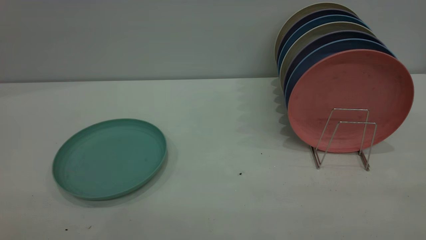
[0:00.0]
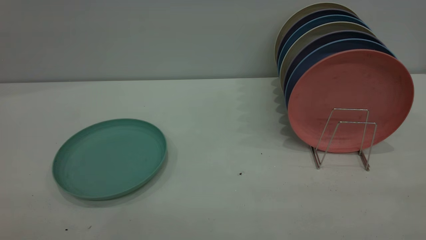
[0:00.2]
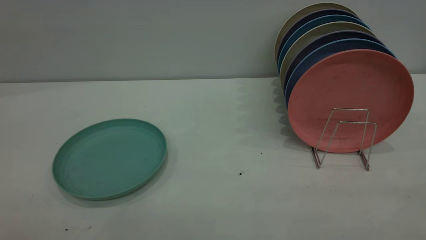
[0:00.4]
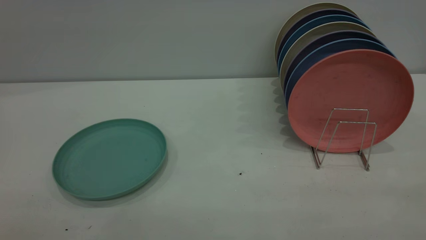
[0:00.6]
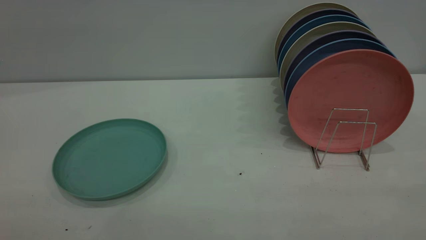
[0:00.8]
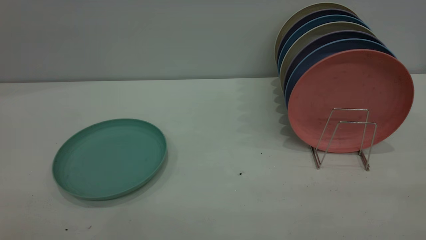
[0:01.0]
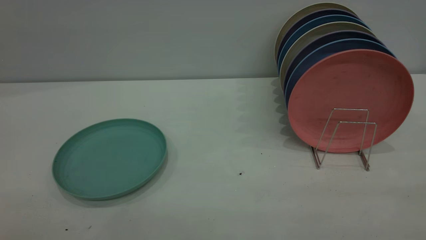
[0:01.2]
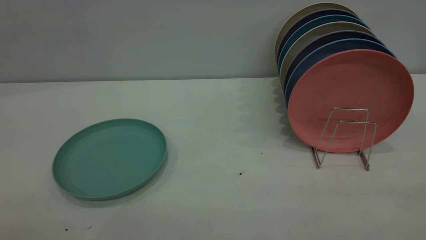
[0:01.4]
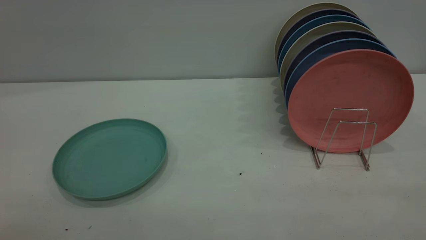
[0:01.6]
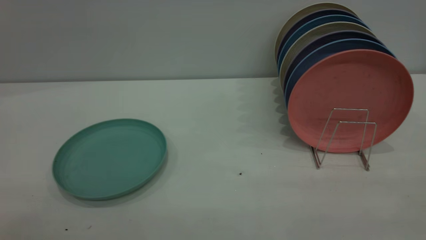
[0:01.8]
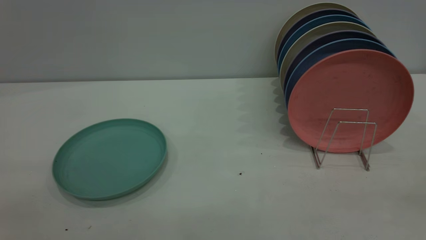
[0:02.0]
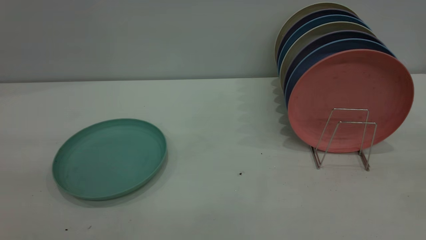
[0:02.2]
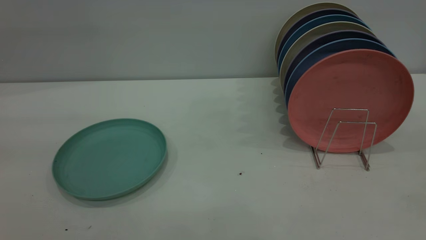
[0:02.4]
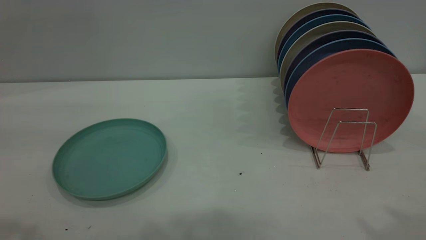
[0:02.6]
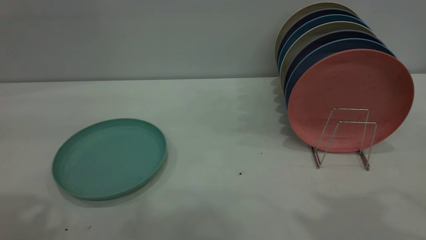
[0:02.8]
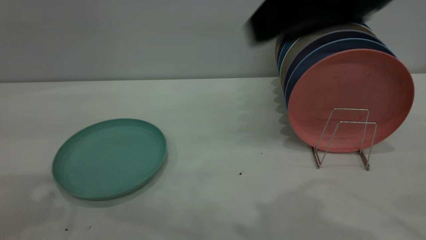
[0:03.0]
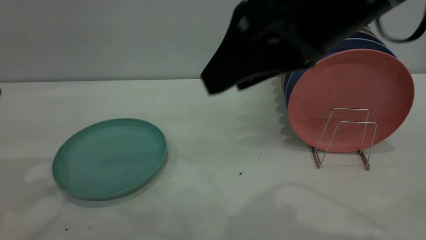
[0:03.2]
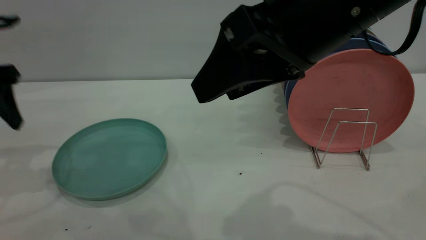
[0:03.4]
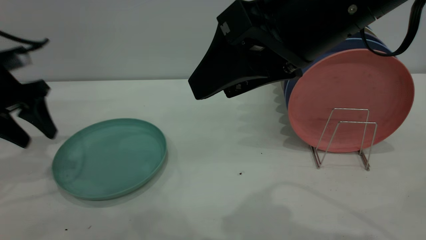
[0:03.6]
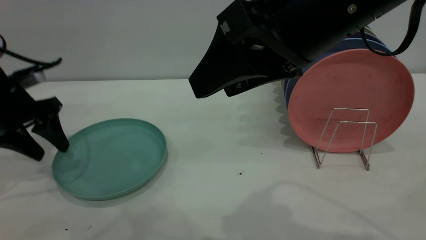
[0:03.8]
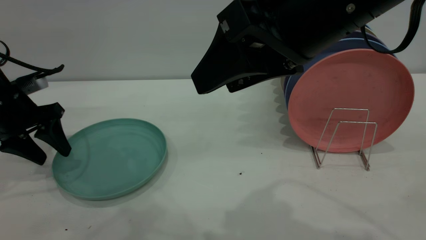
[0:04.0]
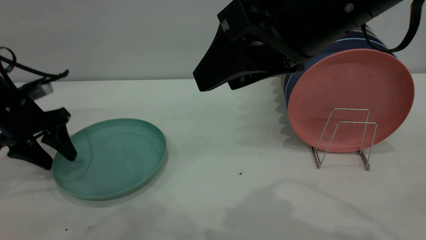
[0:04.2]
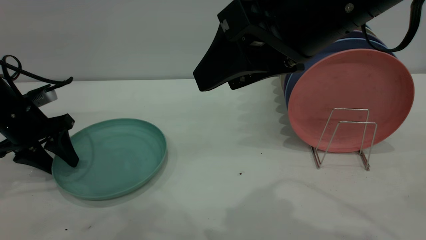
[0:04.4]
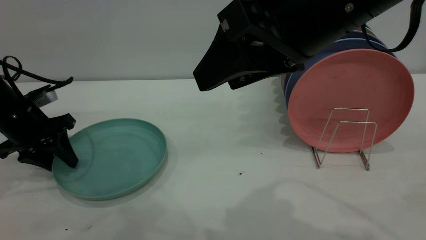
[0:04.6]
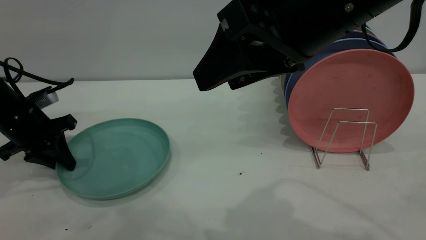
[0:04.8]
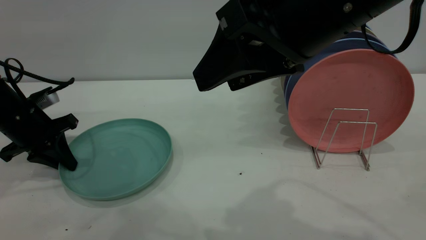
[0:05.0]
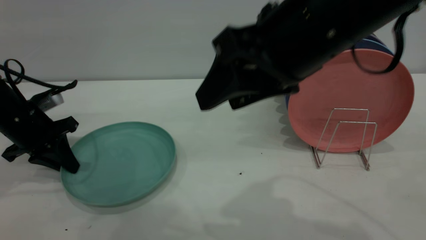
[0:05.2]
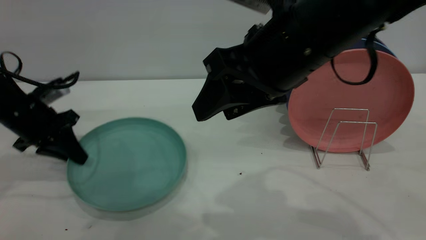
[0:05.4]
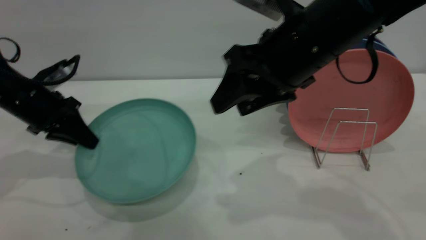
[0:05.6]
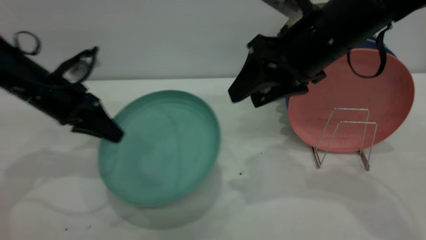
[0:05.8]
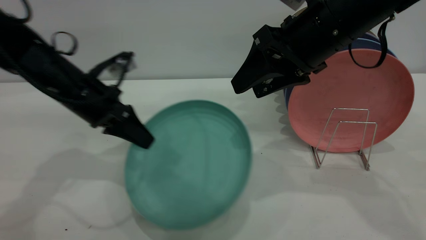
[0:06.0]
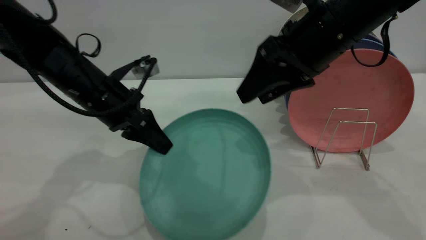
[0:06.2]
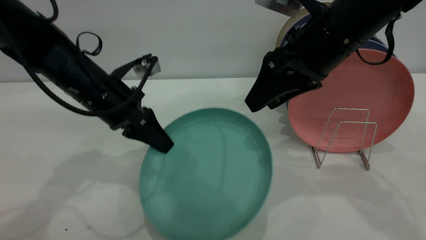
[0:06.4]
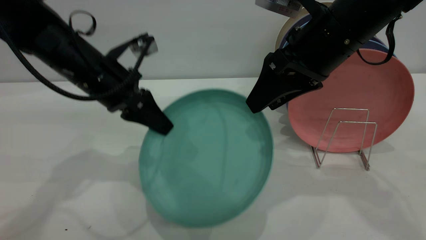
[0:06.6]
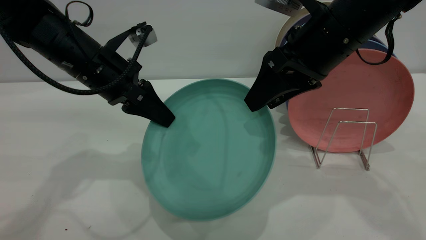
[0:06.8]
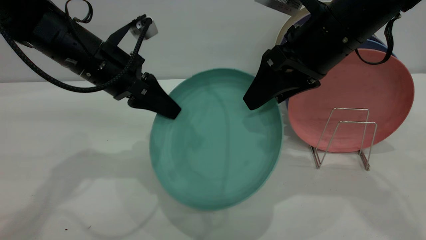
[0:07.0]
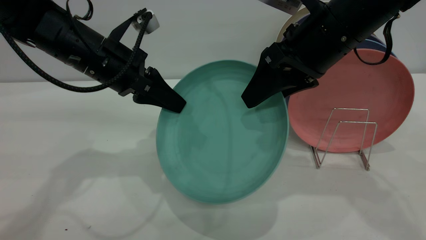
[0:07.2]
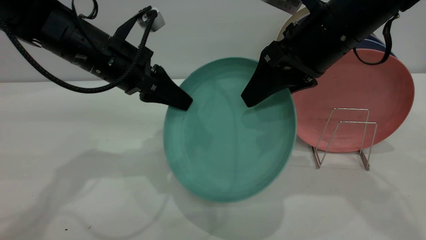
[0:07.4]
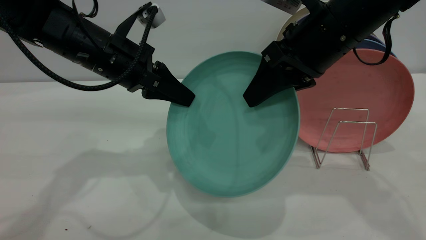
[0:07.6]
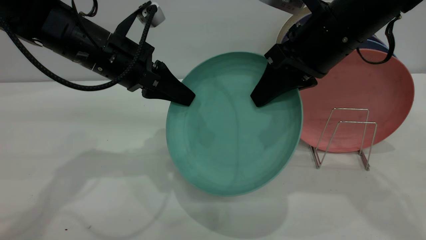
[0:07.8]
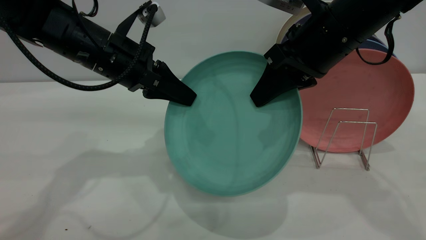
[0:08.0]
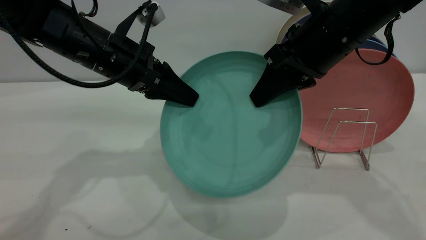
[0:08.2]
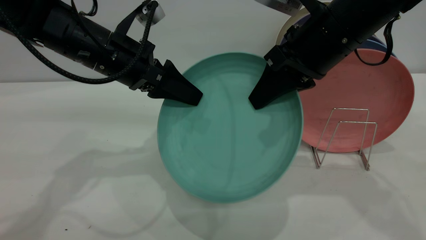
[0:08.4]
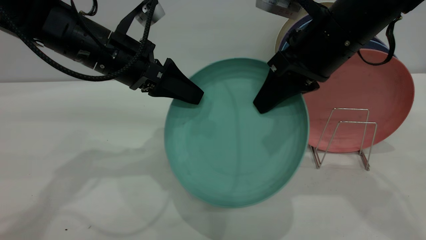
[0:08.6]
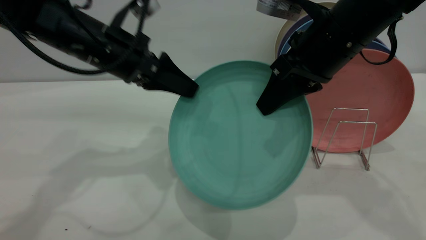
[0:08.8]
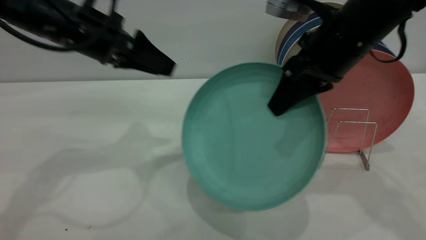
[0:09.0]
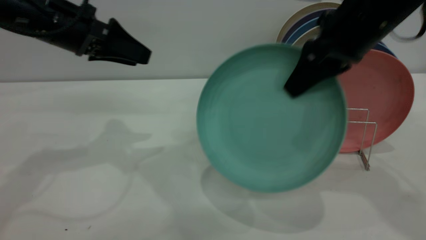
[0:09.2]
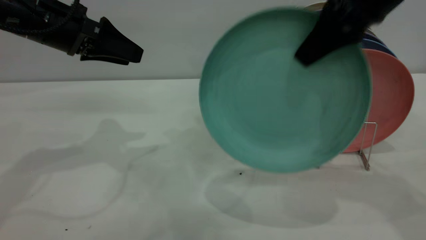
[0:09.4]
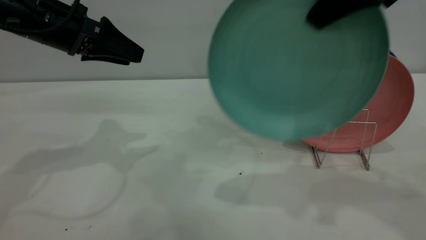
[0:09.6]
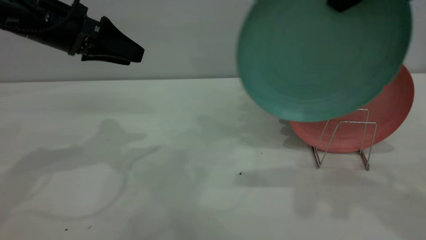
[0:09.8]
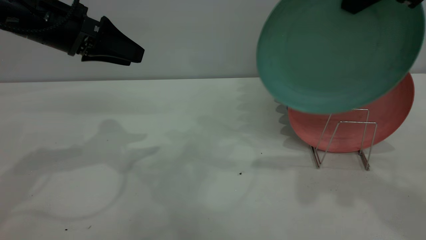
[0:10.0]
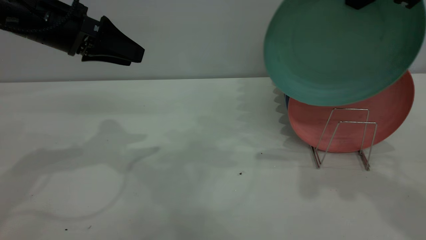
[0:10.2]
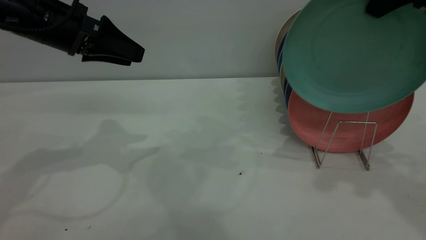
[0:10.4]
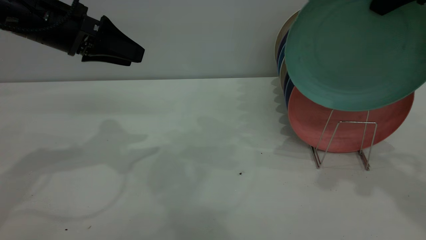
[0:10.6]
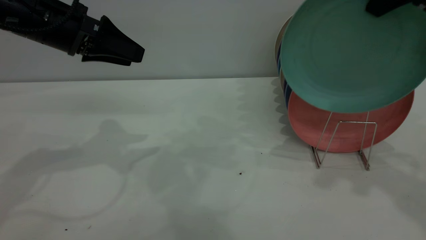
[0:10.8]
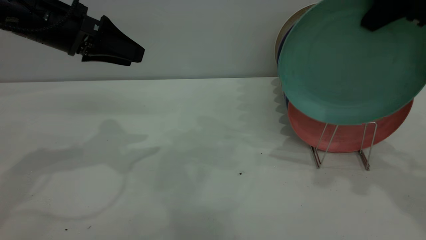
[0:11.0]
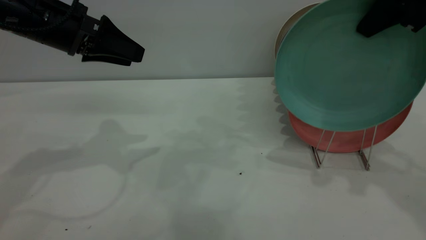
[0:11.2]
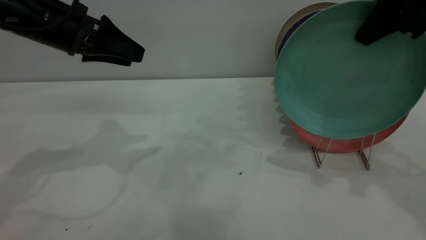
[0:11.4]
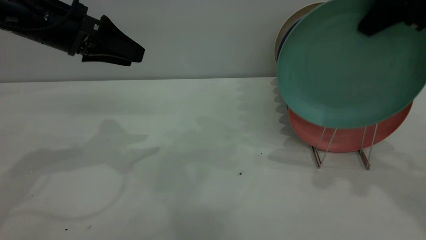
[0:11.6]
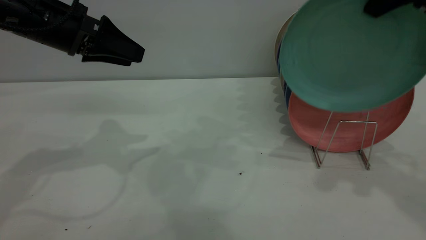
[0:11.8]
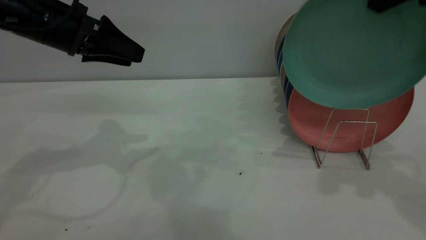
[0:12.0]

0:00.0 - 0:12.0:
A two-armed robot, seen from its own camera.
Task of the whole recording: the left gripper grasp the green plate, the left gripper pass the green plate to the right gripper, and the right gripper place the green plate on the plate rack.
Step, 0:00.0 - 0:05.8: Pick up the plate with the left gripper.
Step, 0:06.0 - 0:09.6: Pass the plate from the left gripper to the right gripper.
0:00.0 - 0:01.6: Neither gripper changes place.
0:01.6 - 0:03.0: The right gripper heads forward and to the left, covering some 30 cm, and opens its fingers. Meanwhile the left gripper moves forward, some 30 cm.
0:03.0 - 0:04.4: The left gripper is displaced downward and forward by some 25 cm.
0:04.4 - 0:06.0: The left gripper goes approximately 15 cm to the right, and closes its fingers. Meanwhile the right gripper is displaced forward and downward by about 15 cm.
0:06.0 - 0:07.6: The left gripper shifts approximately 5 cm upward, while the right gripper closes up.
0:07.6 - 0:09.0: The left gripper ends up approximately 5 cm from where it was, and opens its fingers. The right gripper closes.
0:09.0 - 0:10.4: The right gripper goes some 15 cm upward and to the right.

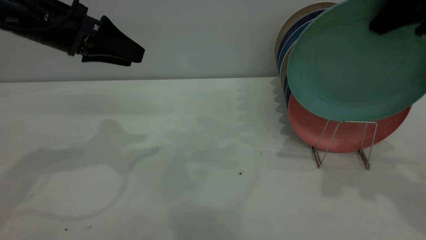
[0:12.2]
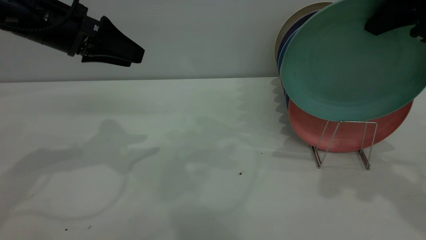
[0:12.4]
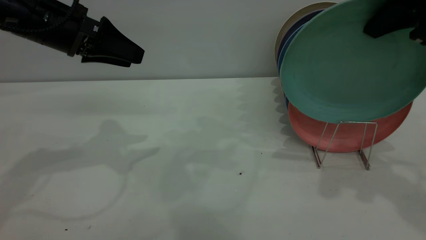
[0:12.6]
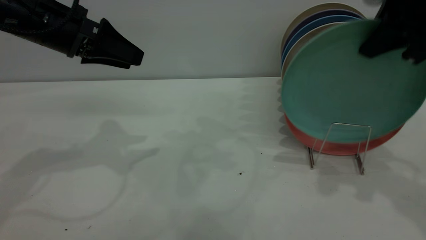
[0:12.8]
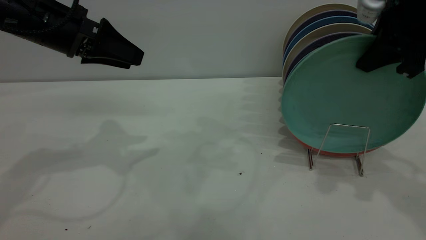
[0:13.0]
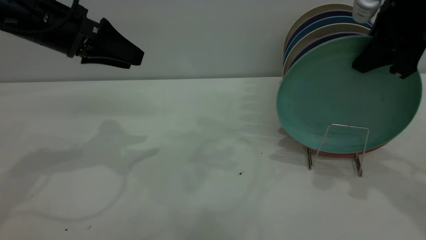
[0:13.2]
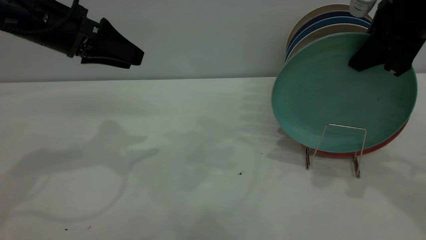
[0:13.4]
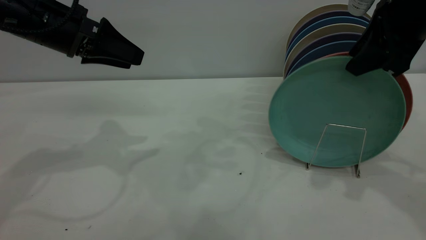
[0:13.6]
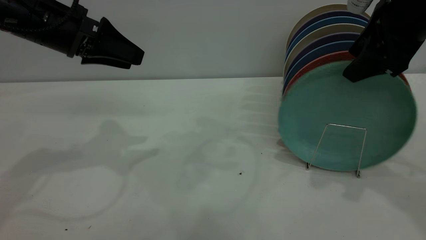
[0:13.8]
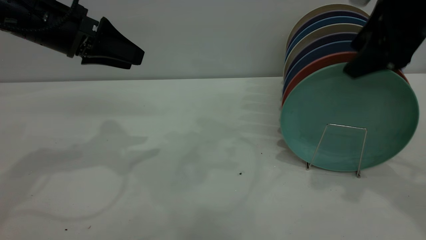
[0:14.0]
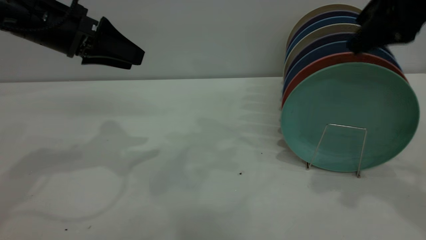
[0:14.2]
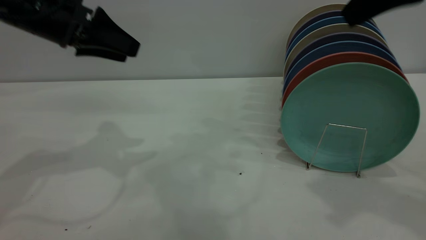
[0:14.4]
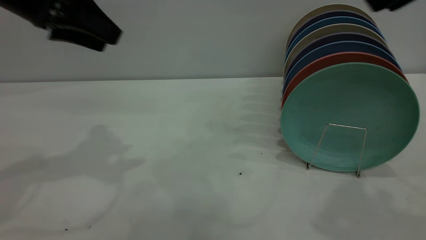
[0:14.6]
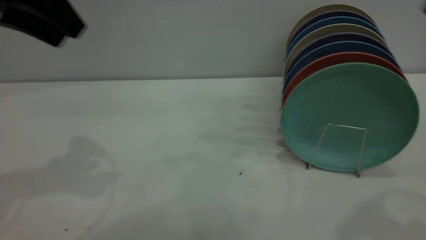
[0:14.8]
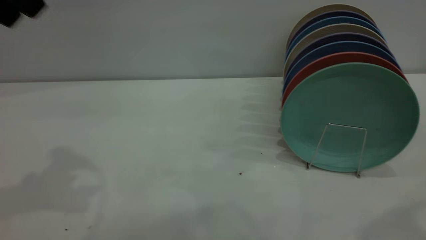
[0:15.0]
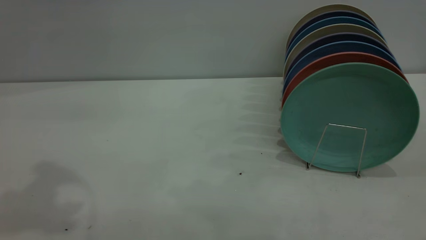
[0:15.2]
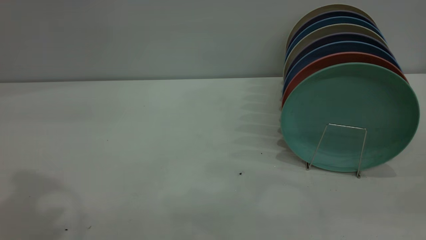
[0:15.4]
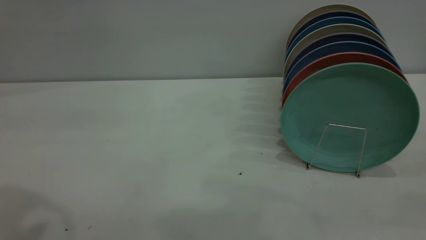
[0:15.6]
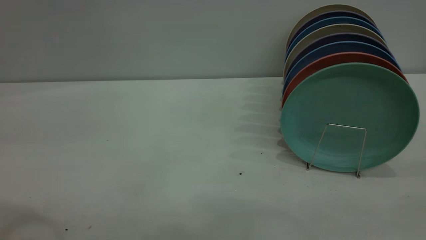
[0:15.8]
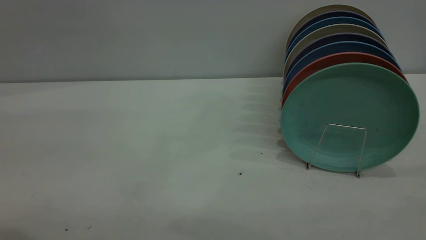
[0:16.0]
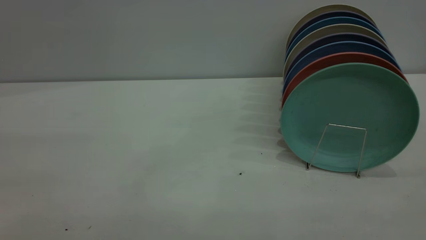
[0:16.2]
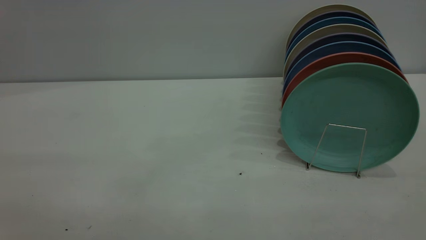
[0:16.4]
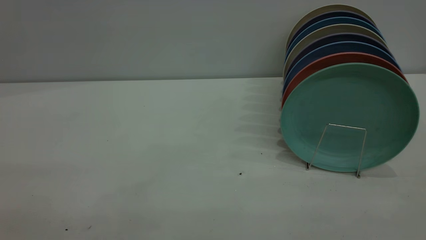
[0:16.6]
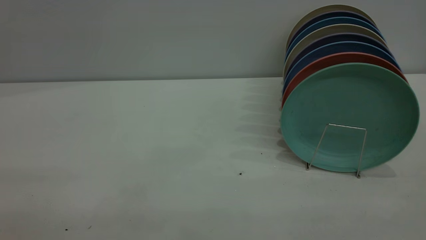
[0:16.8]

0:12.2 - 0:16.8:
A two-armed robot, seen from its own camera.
Task of the whole recording: the left gripper grasp the green plate, the left gripper pass the green plate to the right gripper, and the right gripper place the green plate on the plate rack.
Step, 0:12.2 - 0:14.4: Place the plate on the shelf.
0:12.2 - 0:13.8: The right gripper moves downward, some 5 cm, and opens.
0:13.8 - 0:15.2: The left gripper shifts roughly 25 cm upward and backward. Meanwhile the right gripper moves backward and upward, some 20 cm.
